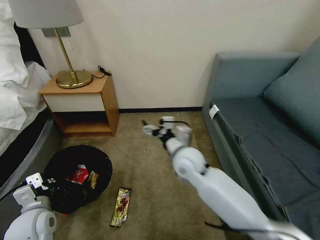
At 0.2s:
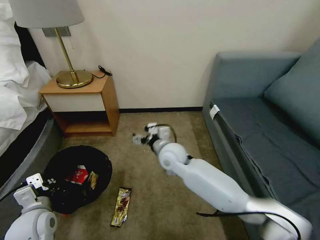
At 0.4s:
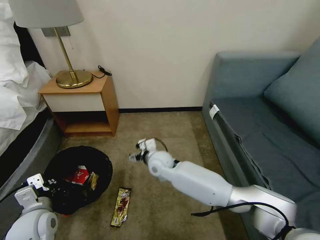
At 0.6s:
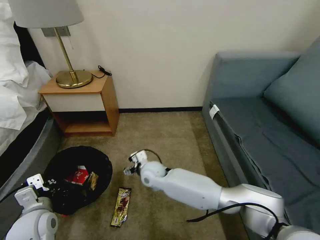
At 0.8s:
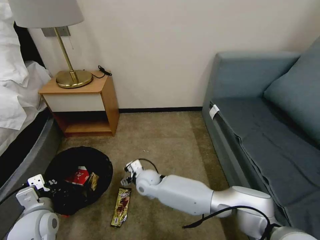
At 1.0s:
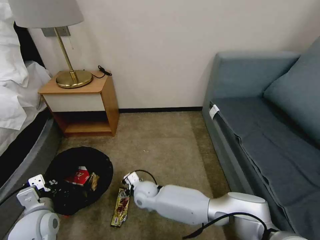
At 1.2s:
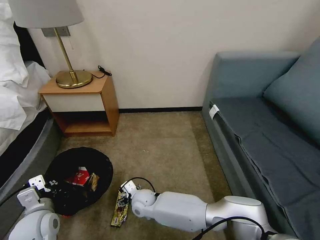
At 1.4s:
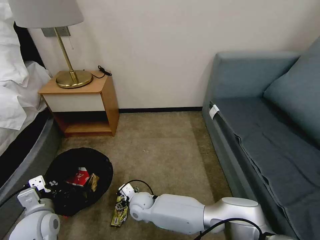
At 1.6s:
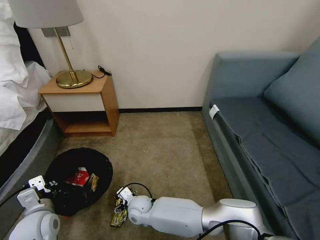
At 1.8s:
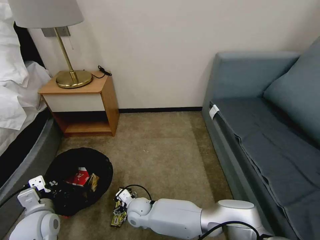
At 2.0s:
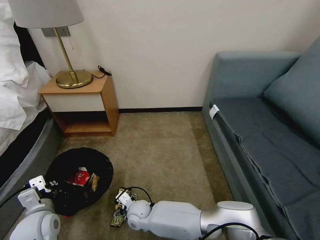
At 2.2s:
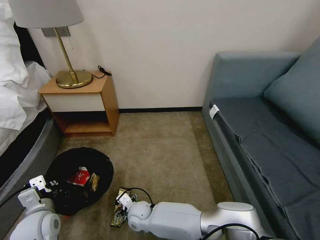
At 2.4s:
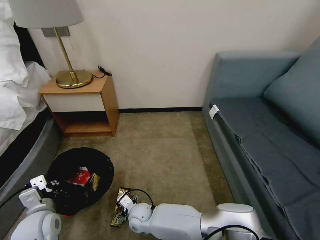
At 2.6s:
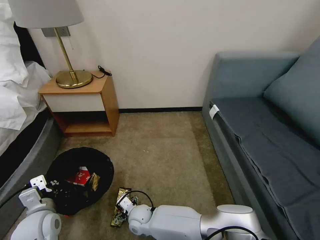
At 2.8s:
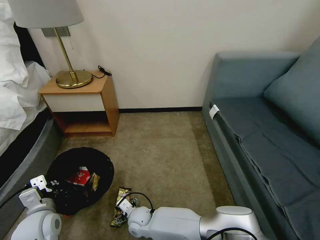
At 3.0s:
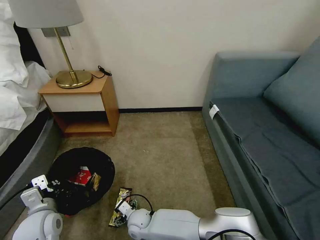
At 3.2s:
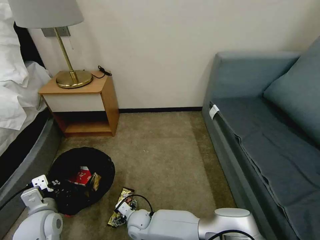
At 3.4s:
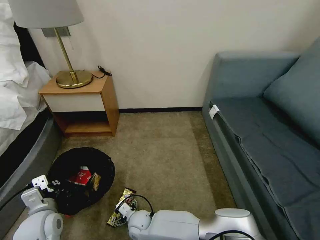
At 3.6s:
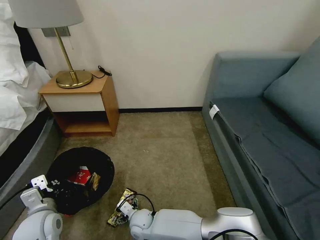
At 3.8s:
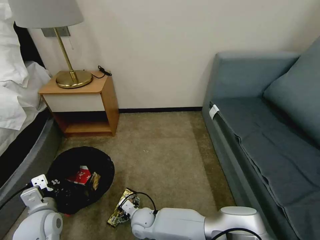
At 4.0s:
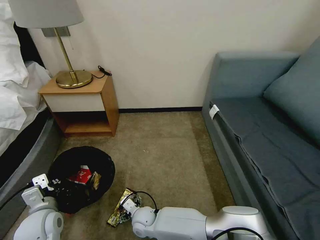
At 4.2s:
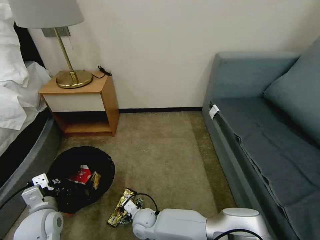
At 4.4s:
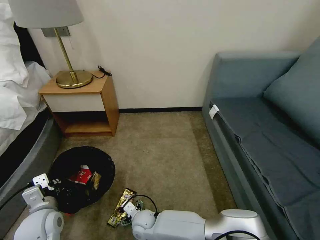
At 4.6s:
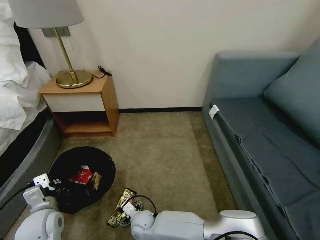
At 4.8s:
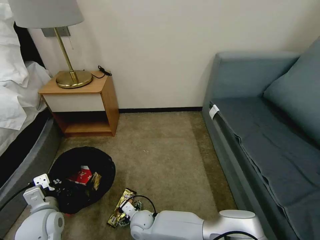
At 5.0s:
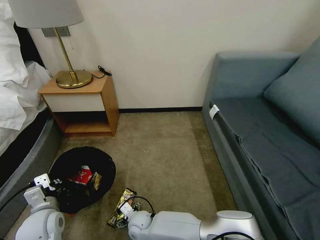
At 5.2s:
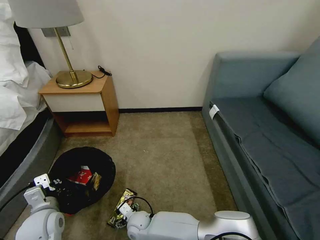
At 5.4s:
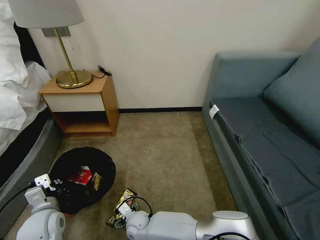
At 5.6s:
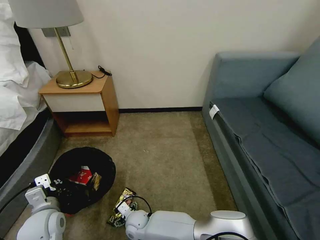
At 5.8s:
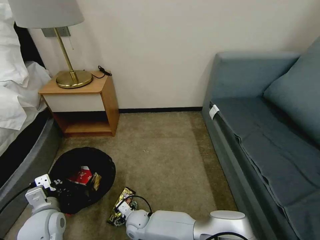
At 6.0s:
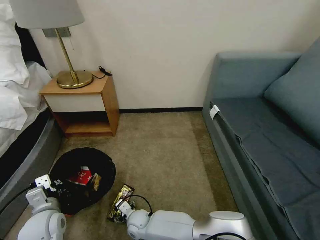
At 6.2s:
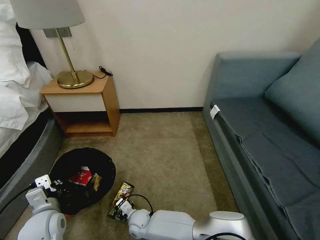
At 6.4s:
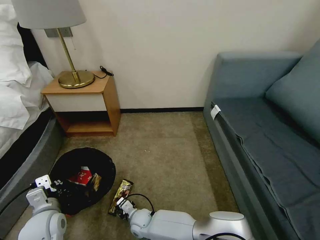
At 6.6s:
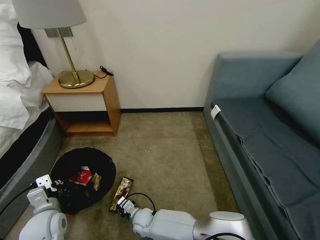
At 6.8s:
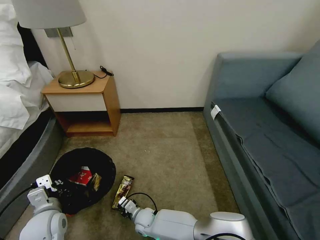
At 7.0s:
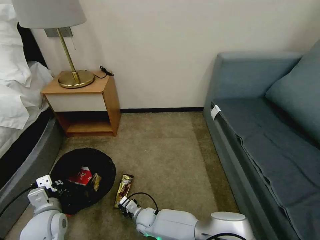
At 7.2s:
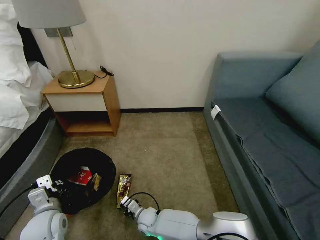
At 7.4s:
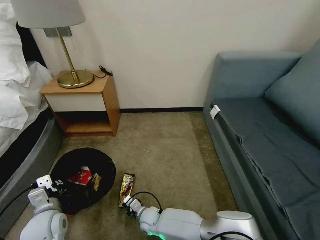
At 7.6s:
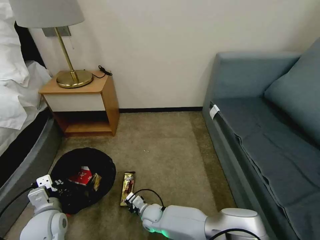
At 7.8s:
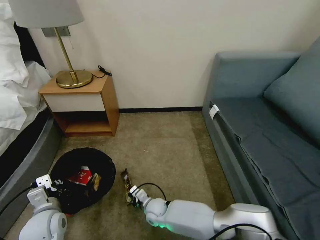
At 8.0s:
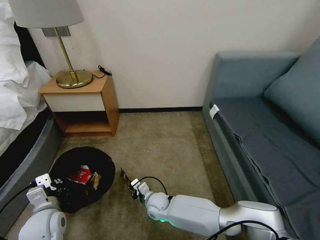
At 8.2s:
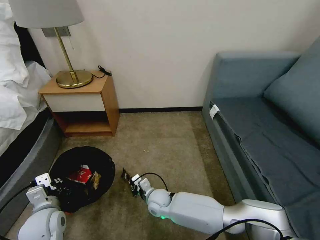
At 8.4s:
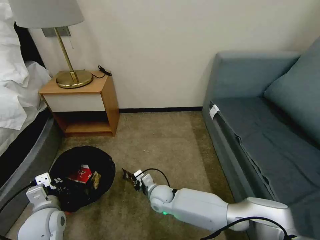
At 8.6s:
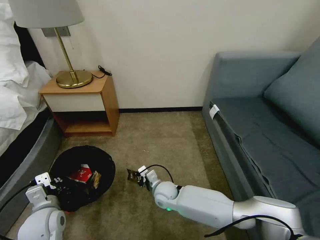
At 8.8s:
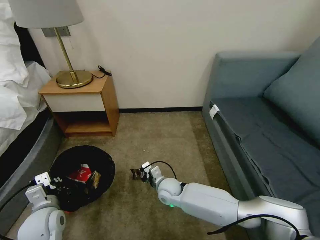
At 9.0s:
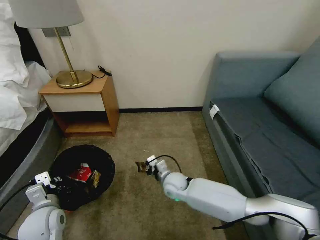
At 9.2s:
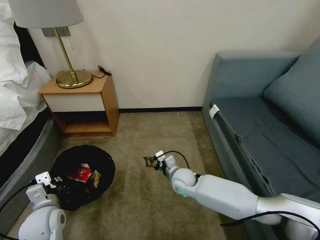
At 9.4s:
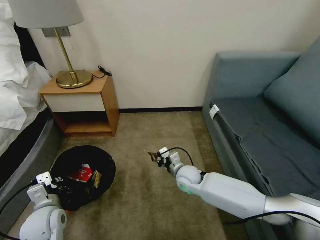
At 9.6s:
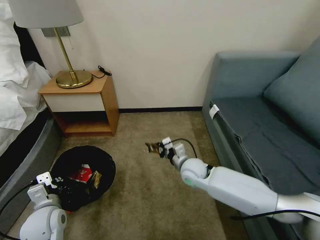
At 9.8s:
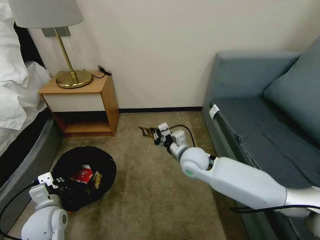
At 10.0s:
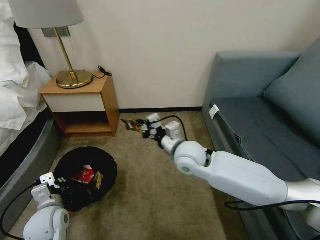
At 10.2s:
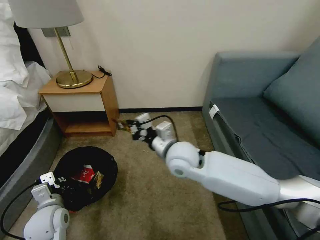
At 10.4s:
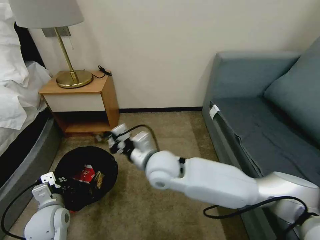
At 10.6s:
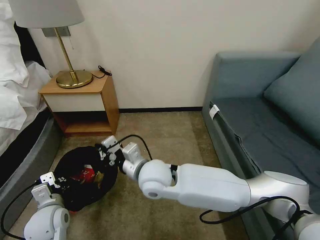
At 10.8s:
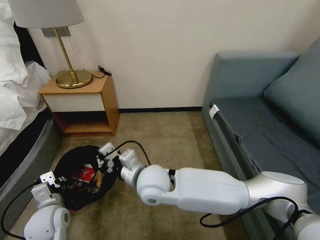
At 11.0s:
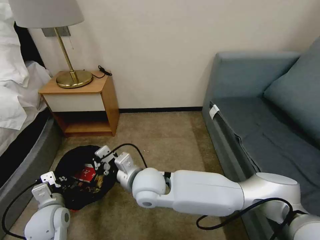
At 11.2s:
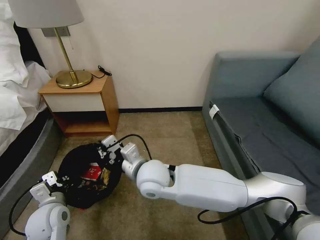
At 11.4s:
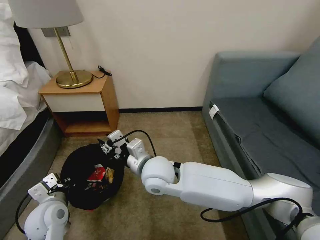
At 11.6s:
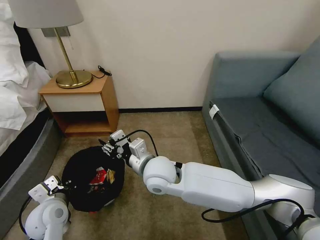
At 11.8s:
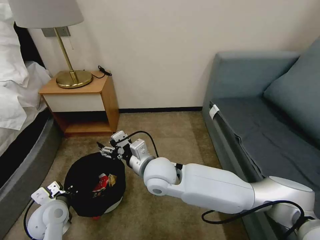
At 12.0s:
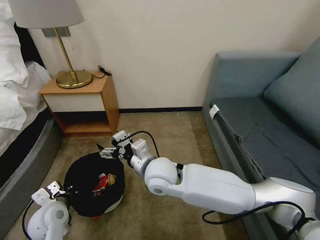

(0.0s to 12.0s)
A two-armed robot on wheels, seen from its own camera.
Task of the whole recording: Pick up the trash bin, then pick up the garbage on the floor and place it into the trash bin.
0.0s - 1.6s: The right gripper moves downward and to the left, roughly 30 cm.
1.6s - 3.0s: The right gripper shifts by some 5 cm.
3.0s - 6.0s: The grippers stay close to where they were, moving slightly.
6.0s - 7.6s: The right gripper is displaced to the right by some 5 cm, and closes up.
7.6s - 9.0s: The right gripper heads upward, to the right and forward, covering some 20 cm.
9.0s - 10.4s: The right gripper travels upward by roughly 20 cm.
10.4s - 12.0s: The right gripper opens its fingers.

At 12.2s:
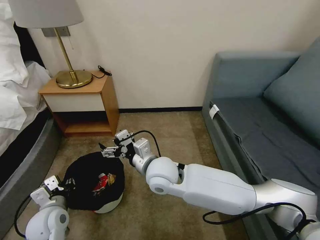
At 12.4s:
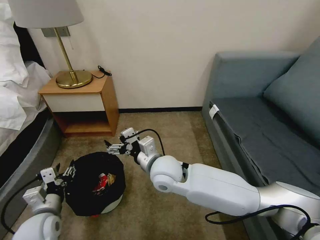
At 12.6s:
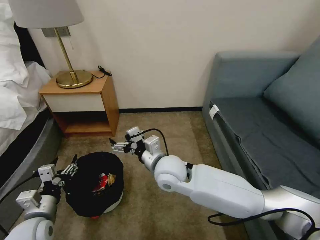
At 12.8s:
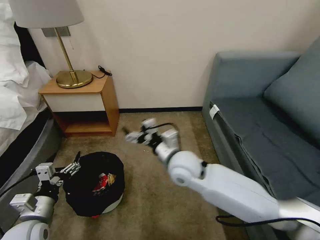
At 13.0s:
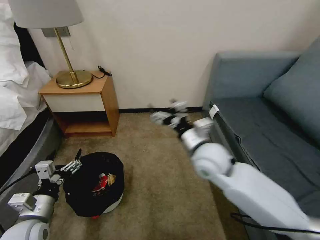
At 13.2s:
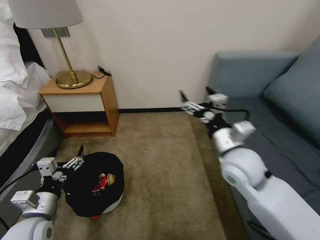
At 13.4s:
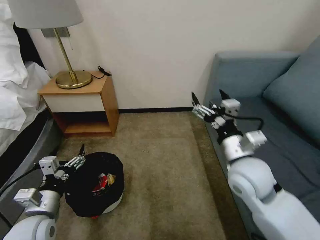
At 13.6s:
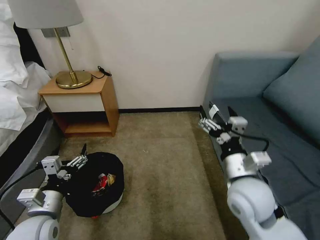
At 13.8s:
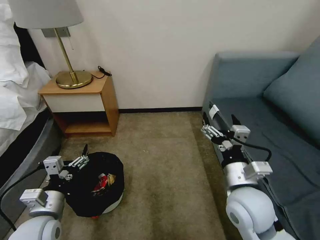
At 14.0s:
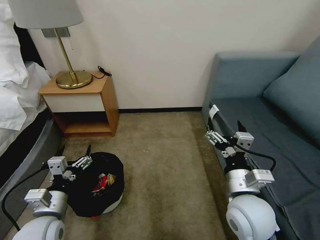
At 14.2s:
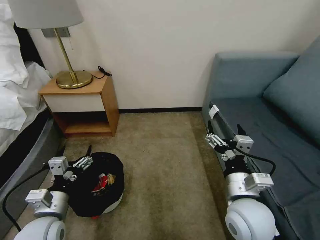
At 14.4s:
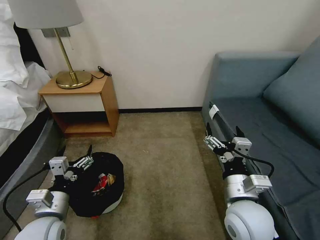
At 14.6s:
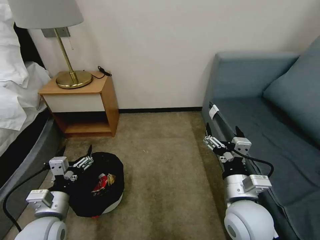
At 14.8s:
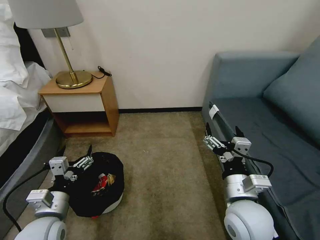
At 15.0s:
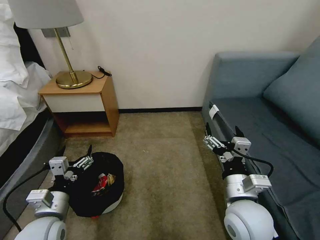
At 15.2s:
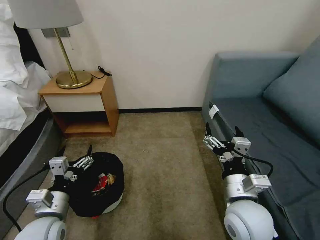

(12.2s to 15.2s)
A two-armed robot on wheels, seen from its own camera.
Task of the whole recording: Pick up the trash bin, then pick up the garbage on the floor and place it into the trash bin.
12.2s - 13.8s: The right gripper is displaced to the right and backward by some 25 cm. The left gripper travels upward by some 5 cm, and opens its fingers.
13.8s - 15.2s: The grippers stay close to where they were, moving slightly.

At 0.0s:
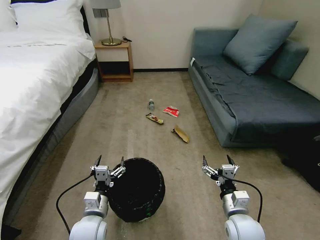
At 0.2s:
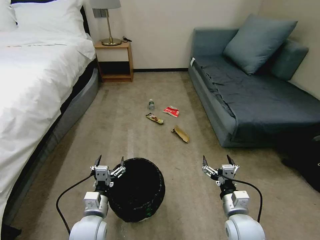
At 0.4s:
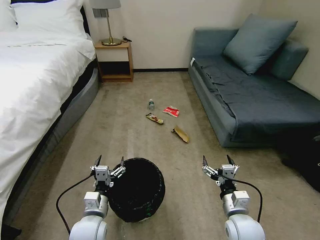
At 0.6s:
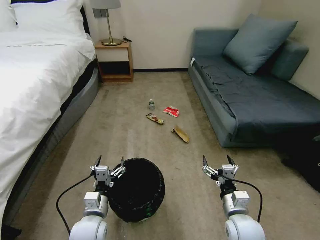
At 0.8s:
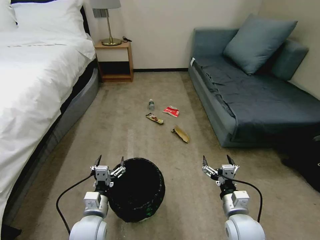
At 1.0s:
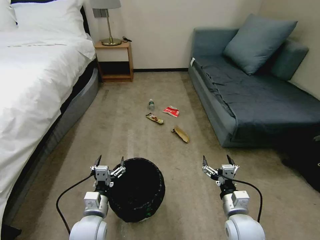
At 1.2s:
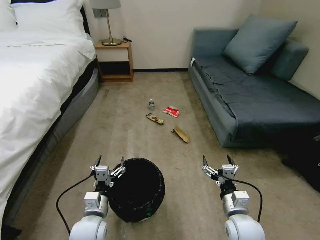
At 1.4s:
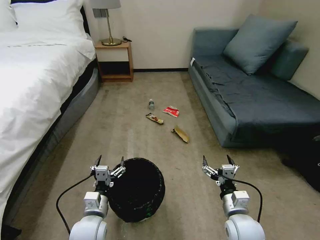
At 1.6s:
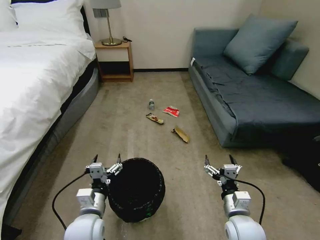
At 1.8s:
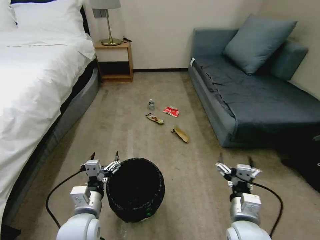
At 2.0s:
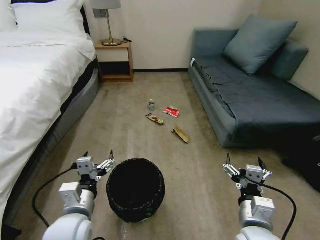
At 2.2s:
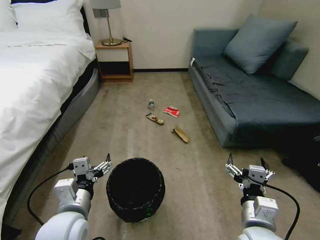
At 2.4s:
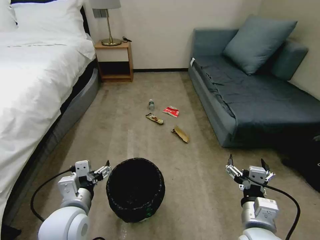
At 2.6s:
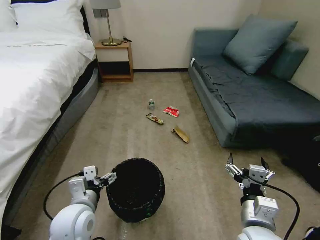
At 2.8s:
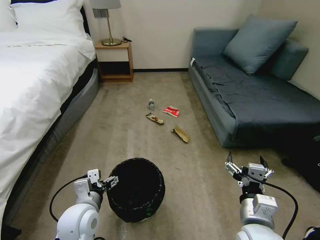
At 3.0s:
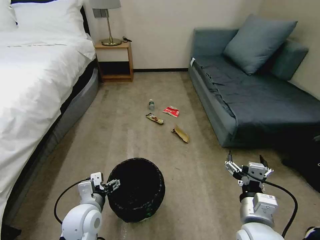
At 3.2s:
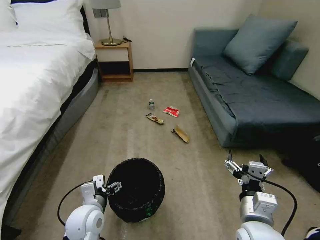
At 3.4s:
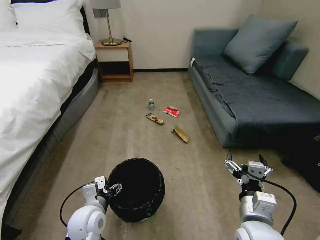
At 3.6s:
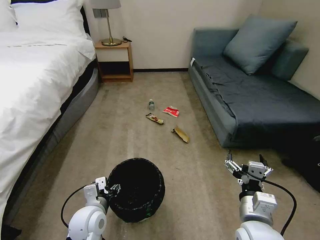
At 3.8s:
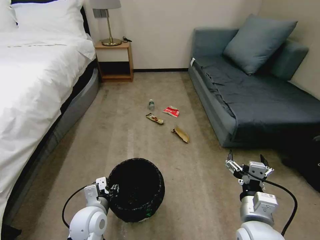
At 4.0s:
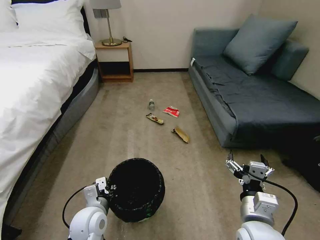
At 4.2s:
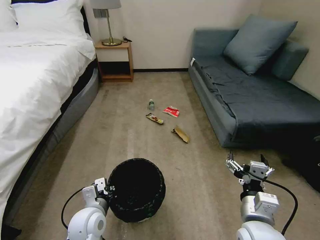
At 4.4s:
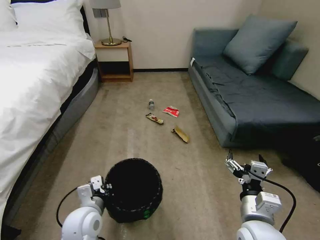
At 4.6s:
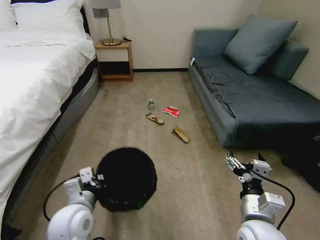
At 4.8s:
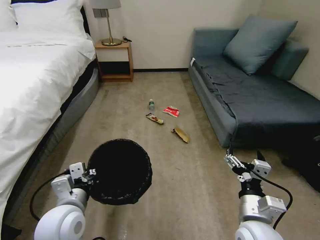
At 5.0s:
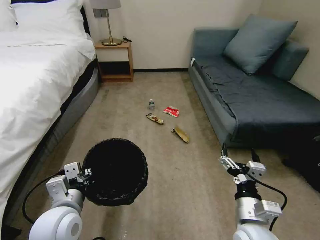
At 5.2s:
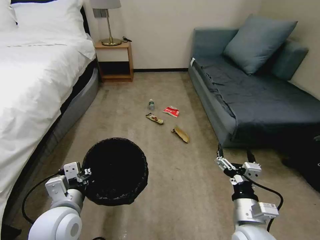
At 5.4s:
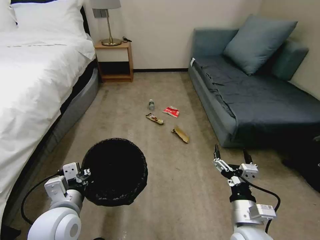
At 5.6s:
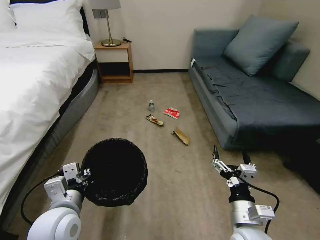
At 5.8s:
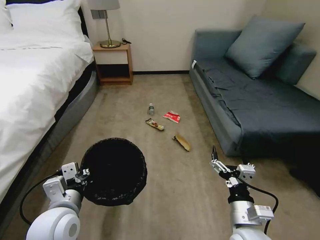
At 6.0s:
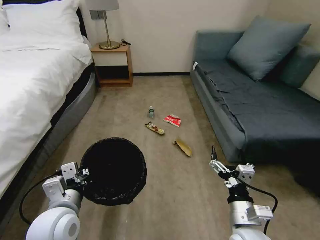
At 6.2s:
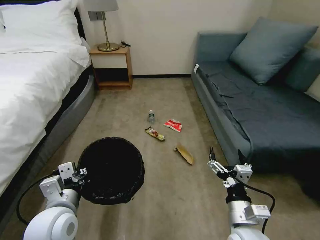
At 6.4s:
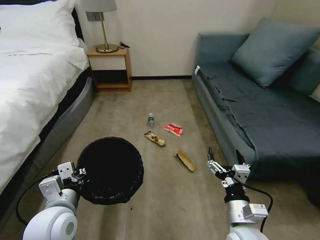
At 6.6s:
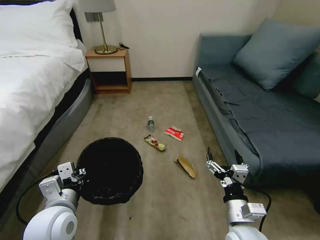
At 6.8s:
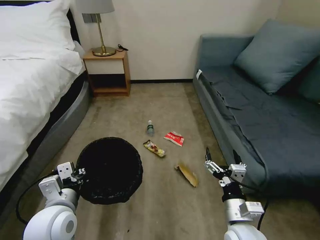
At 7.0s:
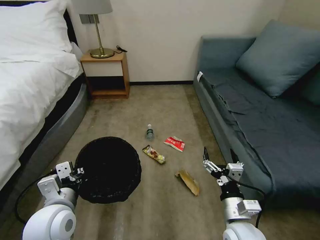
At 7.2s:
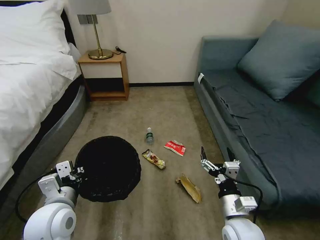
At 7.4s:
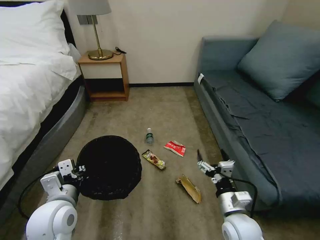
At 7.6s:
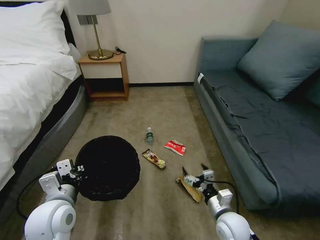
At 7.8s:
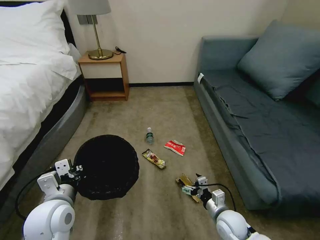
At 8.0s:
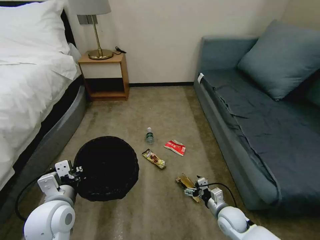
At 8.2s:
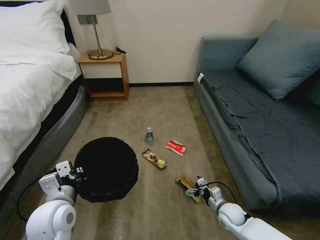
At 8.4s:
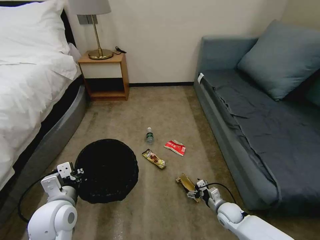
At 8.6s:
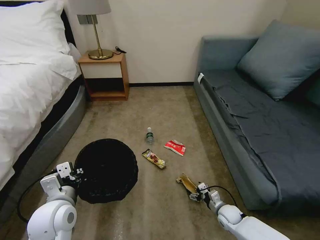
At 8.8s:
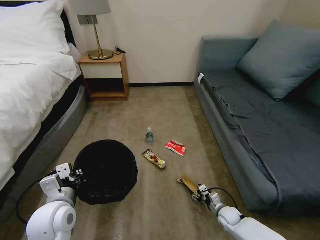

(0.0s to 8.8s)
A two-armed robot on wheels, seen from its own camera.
Task of the whole recording: Pick up the trash bin, then pick up the garbage on the floor and place it into the trash bin.
1.4s - 3.0s: The right gripper heads upward, covering roughly 10 cm. The left gripper is displaced upward by roughly 5 cm.
3.0s - 4.4s: The left gripper closes.
4.4s - 5.8s: The left gripper moves upward, approximately 10 cm.
5.8s - 7.4s: The right gripper goes about 5 cm downward.
7.4s - 8.8s: The right gripper is displaced downward by some 20 cm, and closes.
